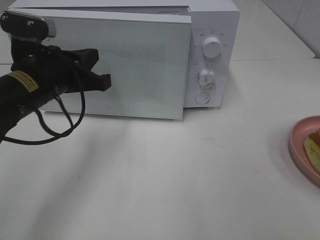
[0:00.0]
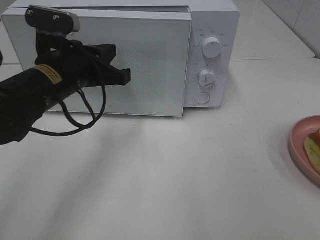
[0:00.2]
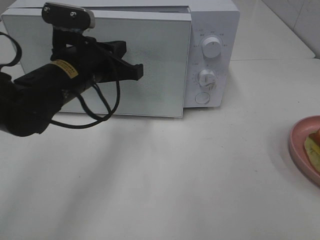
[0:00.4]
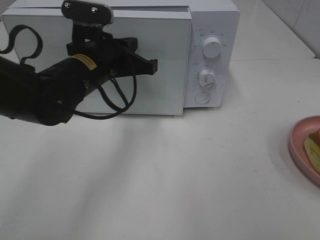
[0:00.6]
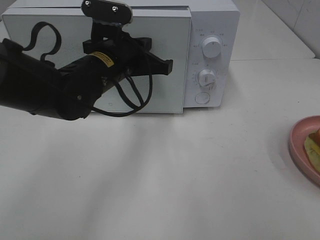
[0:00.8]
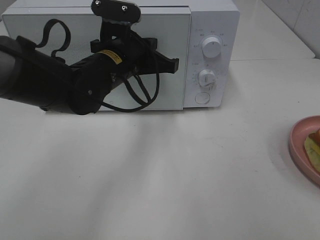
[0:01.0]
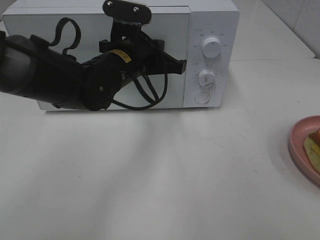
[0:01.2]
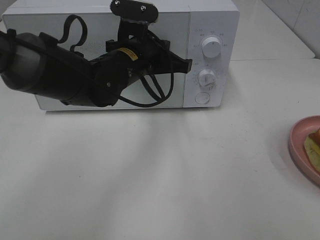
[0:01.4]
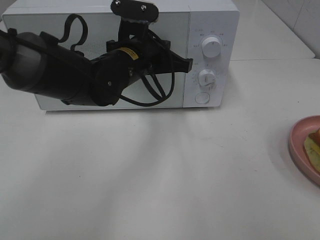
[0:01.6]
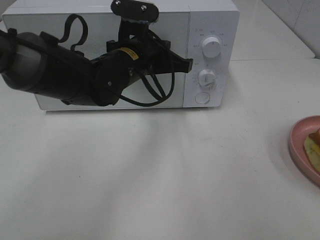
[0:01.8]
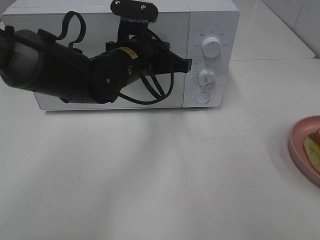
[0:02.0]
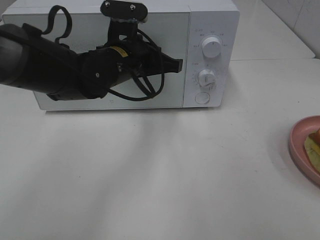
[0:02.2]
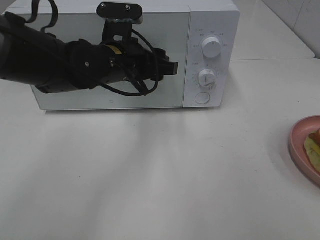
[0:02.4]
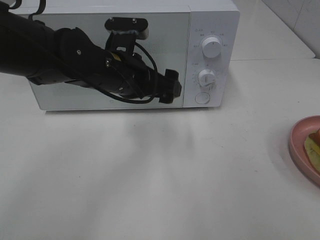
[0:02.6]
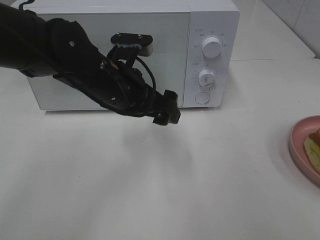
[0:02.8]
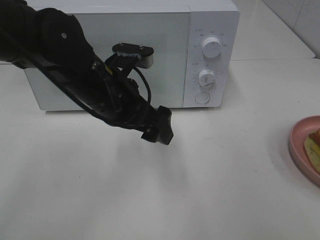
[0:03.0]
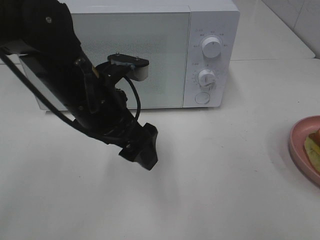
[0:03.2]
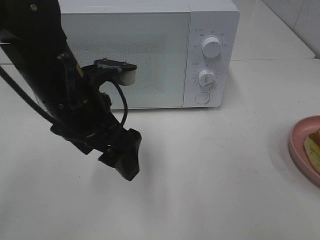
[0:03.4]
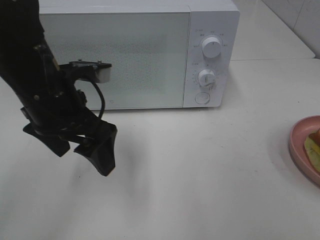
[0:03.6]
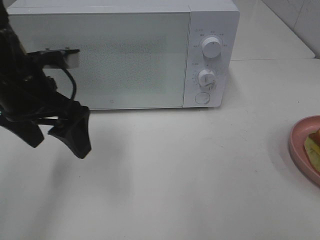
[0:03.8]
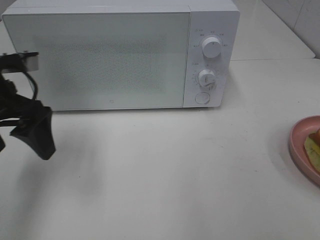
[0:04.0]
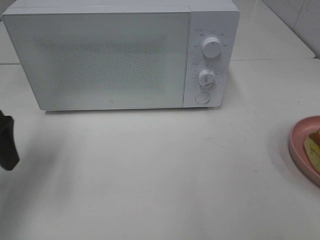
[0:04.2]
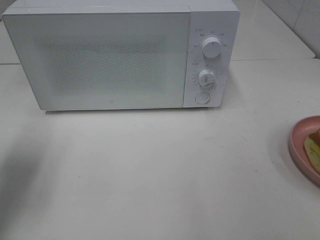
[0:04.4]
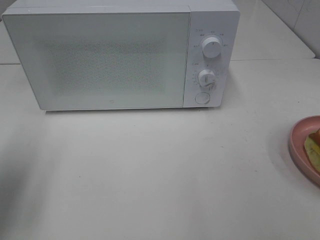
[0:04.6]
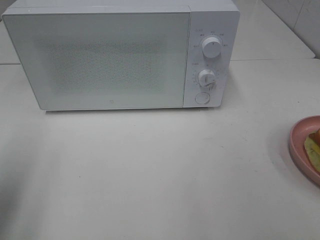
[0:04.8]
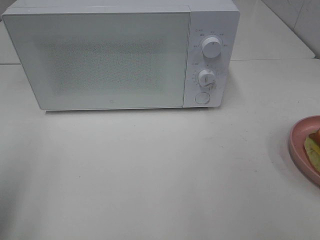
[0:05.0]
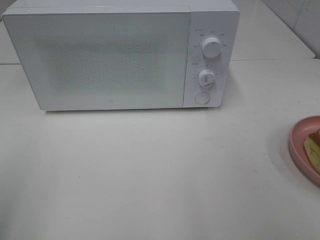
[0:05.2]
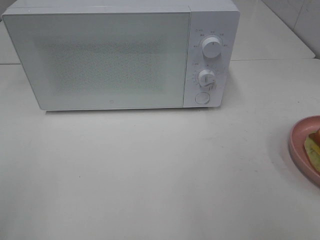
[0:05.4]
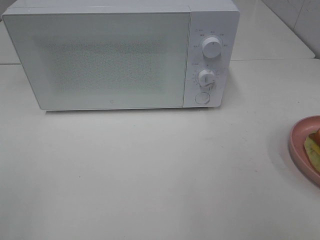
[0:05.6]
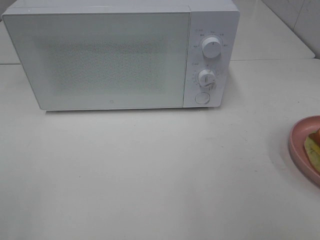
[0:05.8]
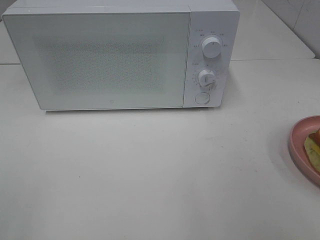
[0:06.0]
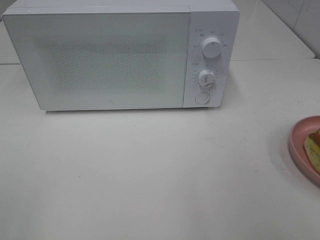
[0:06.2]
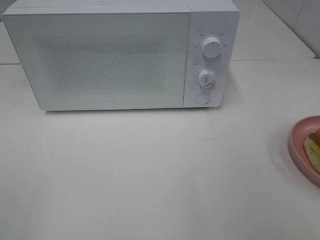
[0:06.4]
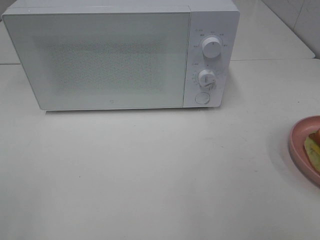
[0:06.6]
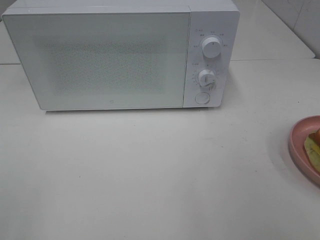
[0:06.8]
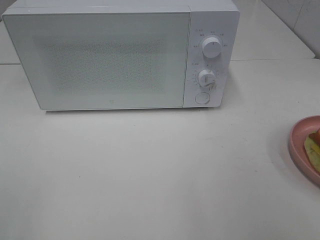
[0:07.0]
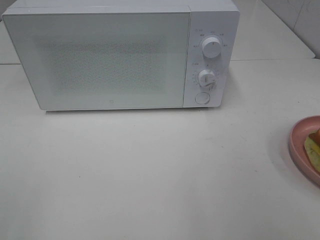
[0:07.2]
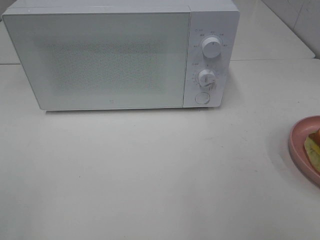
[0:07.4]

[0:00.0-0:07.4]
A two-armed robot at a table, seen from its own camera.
Task of the whole recording: Heat Sandwich.
Step, 0.0 to 2.8 s: Left hand: close the microwave door.
0.0 to 1.4 s: The left gripper goes approximately 15 cm to the right and forward.
1.4 to 3.0 s: The left gripper goes some 10 cm backward, and opens.
3.0 to 4.4 s: The left gripper is displaced to the left by approximately 25 cm.
4.4 to 6.0 s: The left gripper travels backward by approximately 20 cm.
6.0 to 7.4 s: Both grippers stay about where they are.

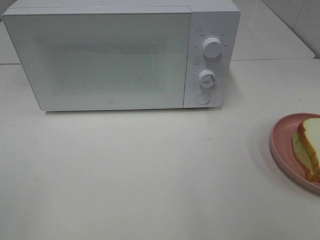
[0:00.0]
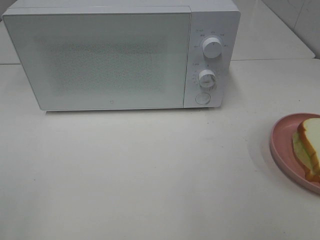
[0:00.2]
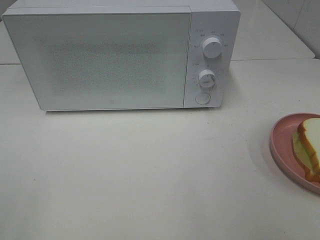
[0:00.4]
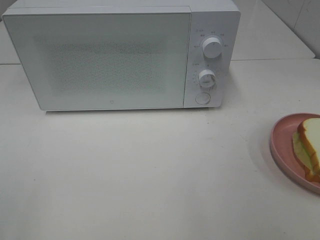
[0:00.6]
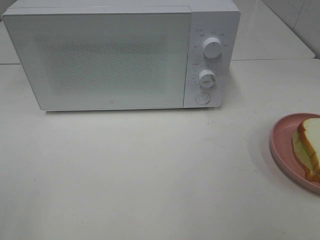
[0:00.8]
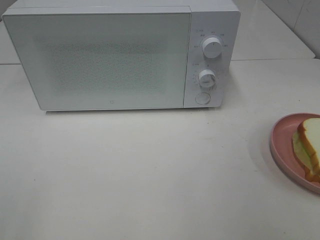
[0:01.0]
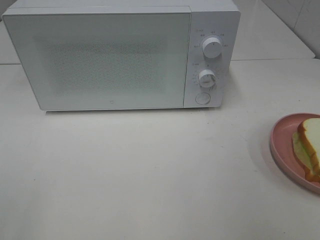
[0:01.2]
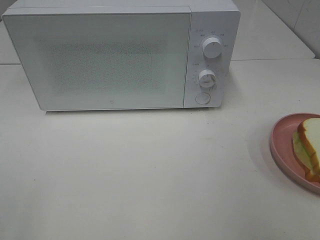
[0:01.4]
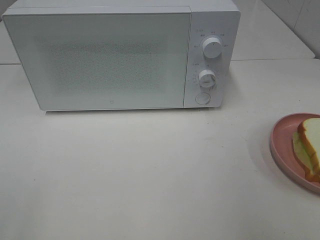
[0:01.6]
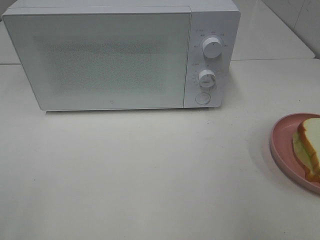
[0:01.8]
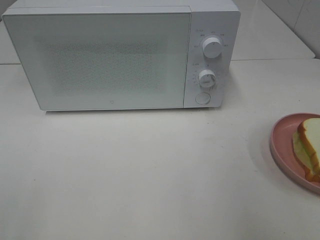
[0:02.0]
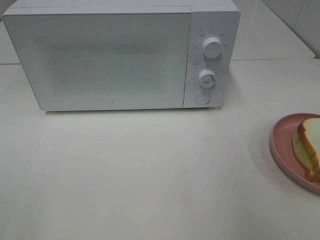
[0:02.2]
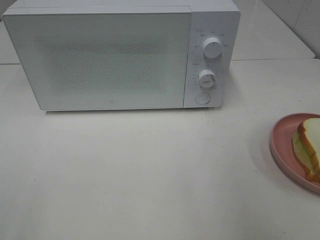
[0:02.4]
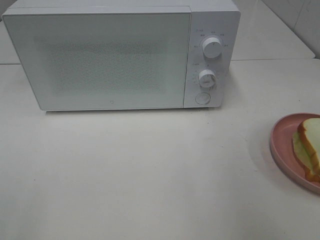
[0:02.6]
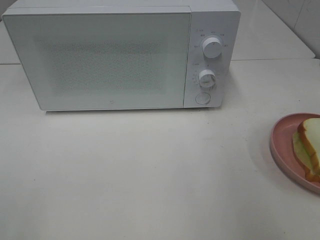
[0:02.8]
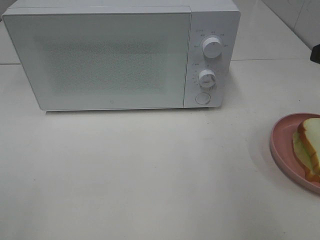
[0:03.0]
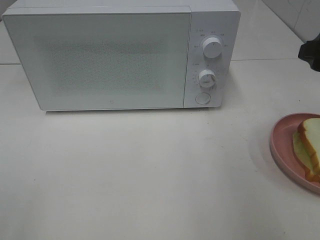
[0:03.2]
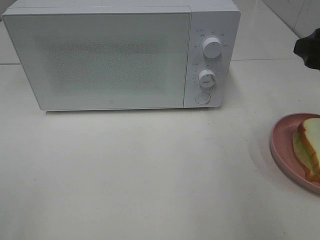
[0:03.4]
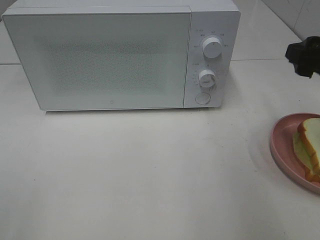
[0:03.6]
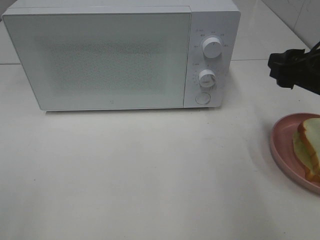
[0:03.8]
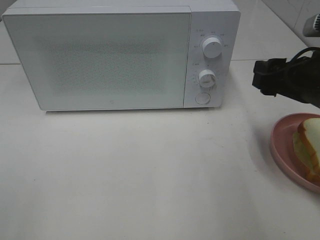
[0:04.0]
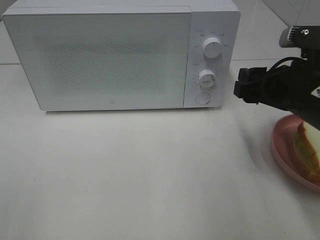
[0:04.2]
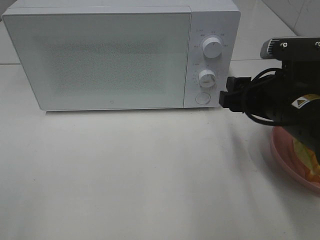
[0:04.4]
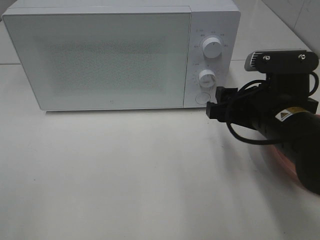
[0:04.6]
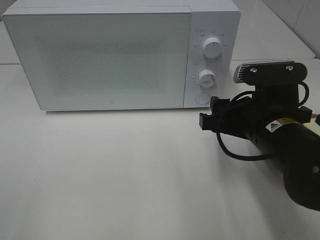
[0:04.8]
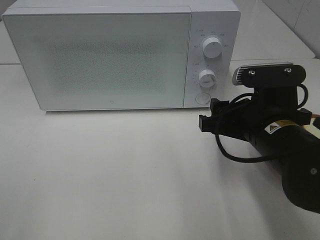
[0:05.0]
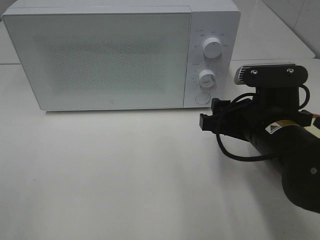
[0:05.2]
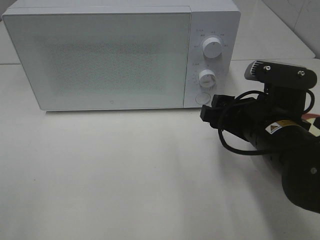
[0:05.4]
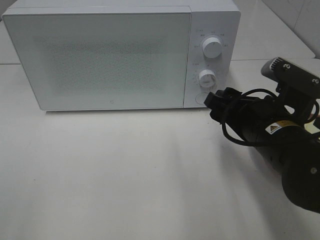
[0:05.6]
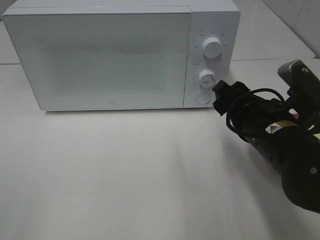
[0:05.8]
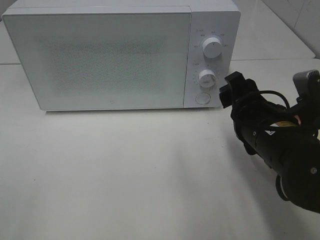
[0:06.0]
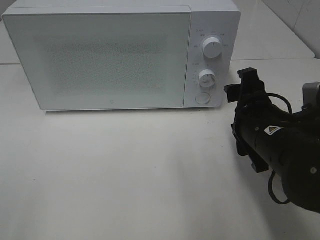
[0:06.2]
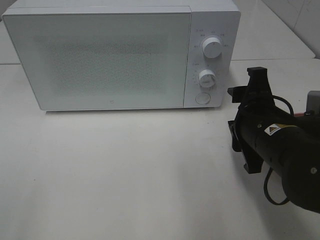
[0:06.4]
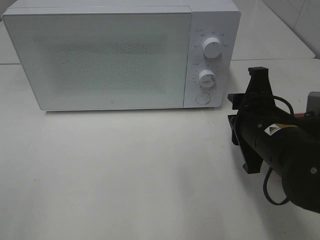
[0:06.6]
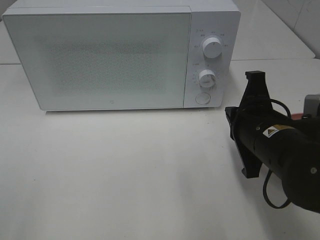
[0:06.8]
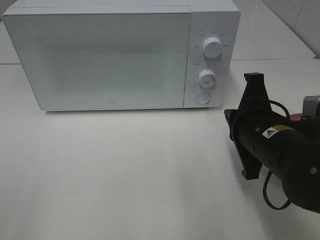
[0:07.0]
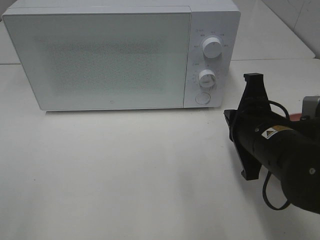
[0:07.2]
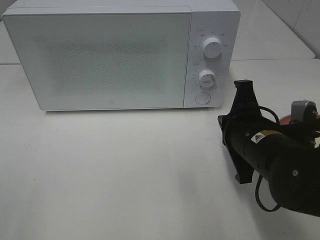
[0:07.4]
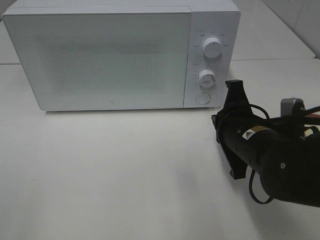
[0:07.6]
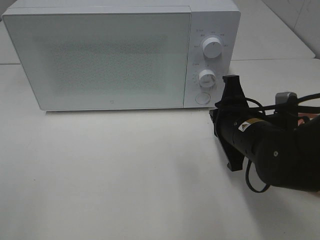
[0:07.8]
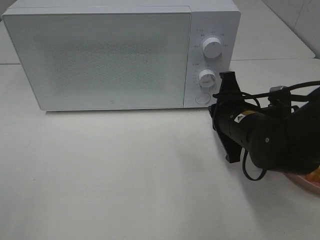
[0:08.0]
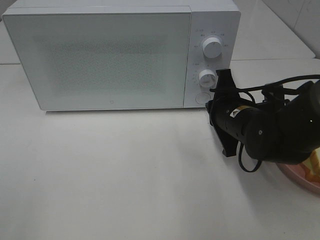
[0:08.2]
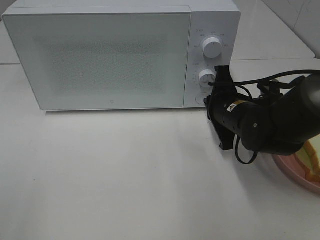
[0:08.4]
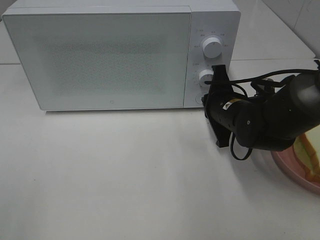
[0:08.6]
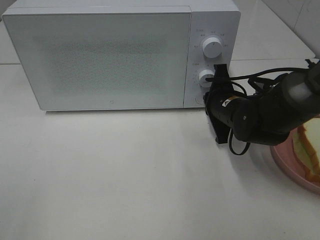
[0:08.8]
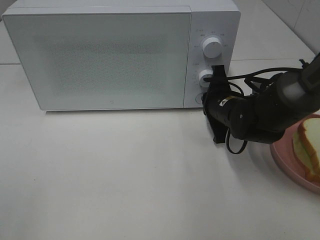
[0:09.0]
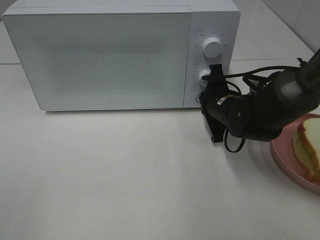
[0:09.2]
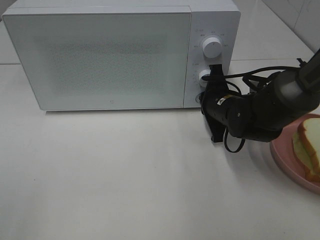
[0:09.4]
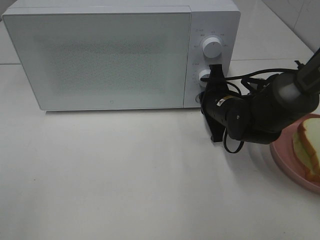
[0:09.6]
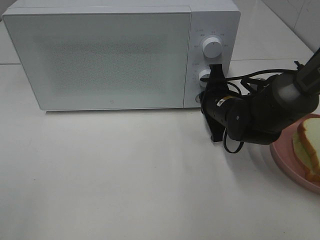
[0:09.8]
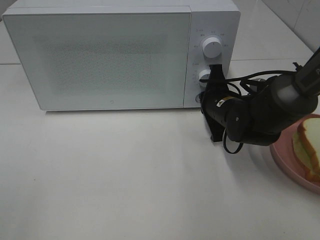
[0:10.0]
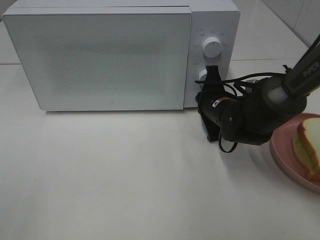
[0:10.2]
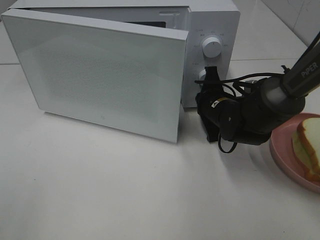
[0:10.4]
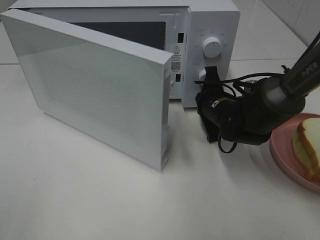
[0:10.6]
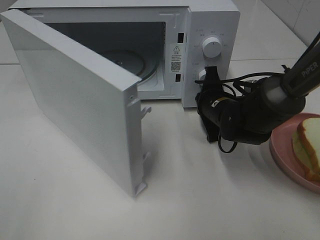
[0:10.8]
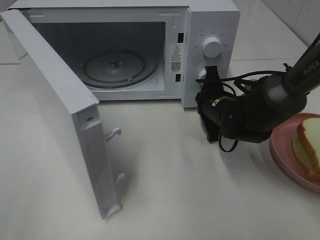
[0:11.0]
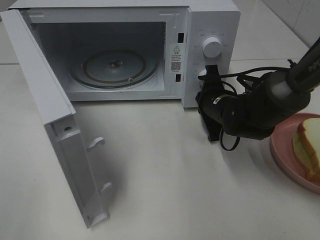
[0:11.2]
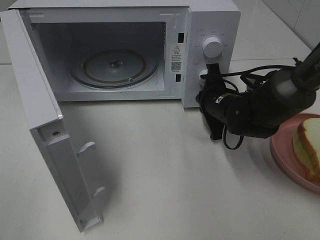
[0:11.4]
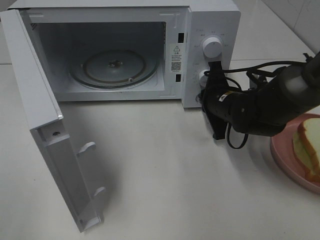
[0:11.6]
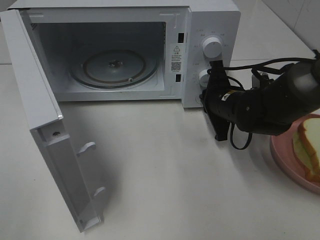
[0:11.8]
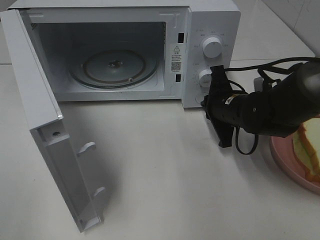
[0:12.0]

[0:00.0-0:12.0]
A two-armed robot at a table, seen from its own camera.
Task of the whole recording: Heat Sandwich.
Step, 0.0 to 11.8 s: Right hand: press the switch.
3.0 to 4.4 s: The right gripper travels to the left and downward by some 15 cm.
6.0 to 7.6 s: The right gripper closes up.
7.6 to 9.0 s: The right gripper travels forward by roughly 10 cm.
9.0 to 10.4 s: The grippers make only small movements.

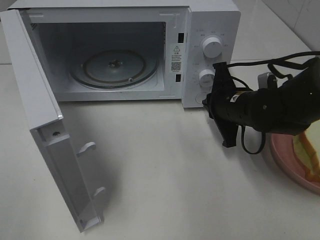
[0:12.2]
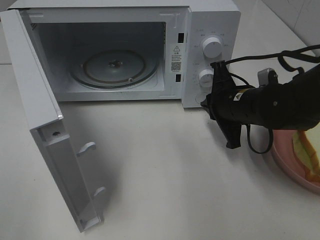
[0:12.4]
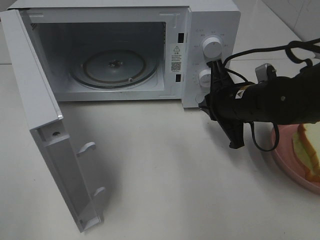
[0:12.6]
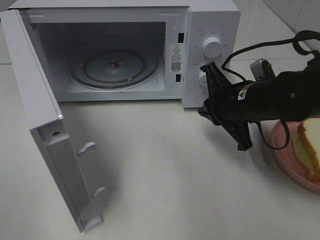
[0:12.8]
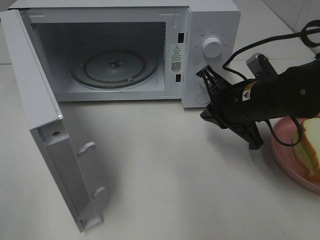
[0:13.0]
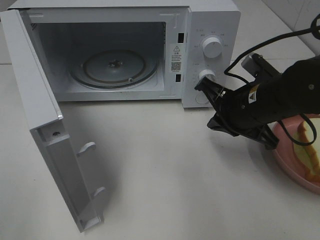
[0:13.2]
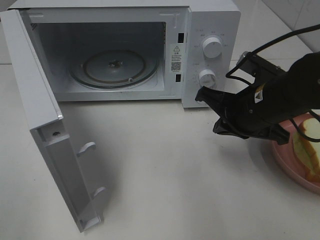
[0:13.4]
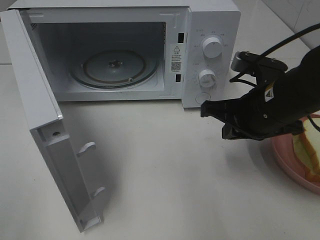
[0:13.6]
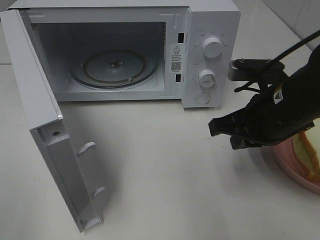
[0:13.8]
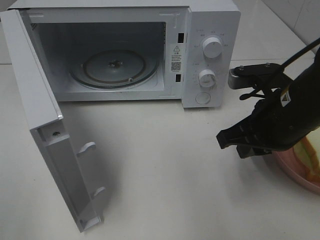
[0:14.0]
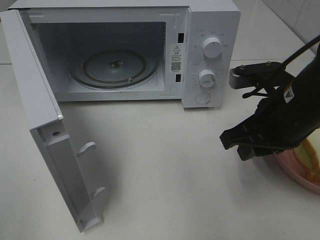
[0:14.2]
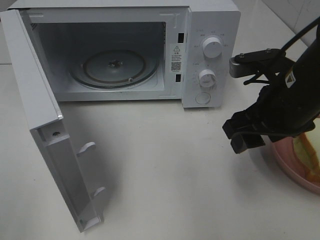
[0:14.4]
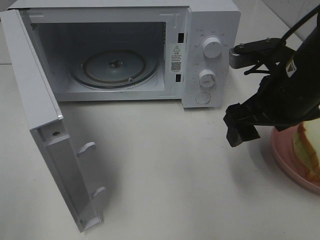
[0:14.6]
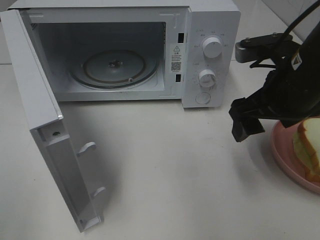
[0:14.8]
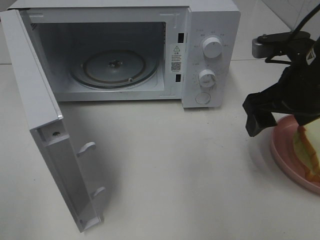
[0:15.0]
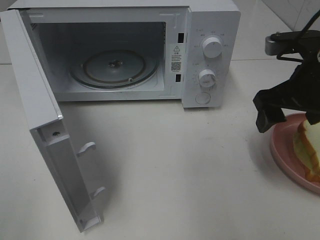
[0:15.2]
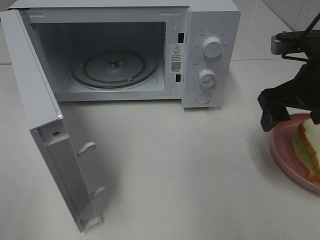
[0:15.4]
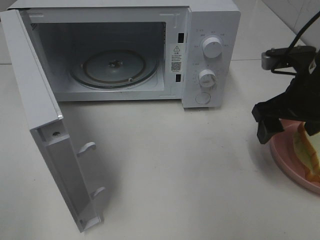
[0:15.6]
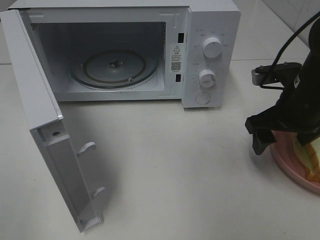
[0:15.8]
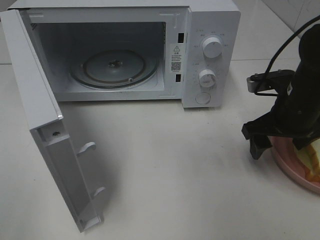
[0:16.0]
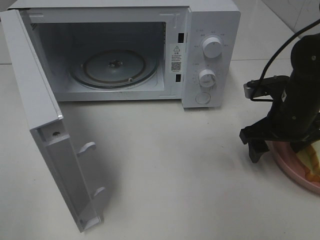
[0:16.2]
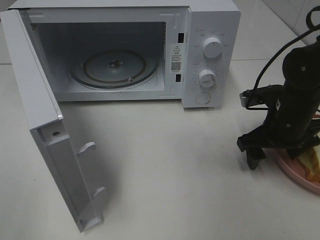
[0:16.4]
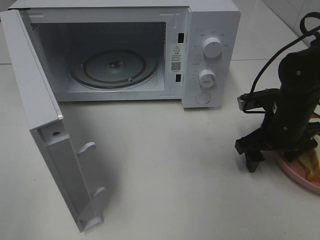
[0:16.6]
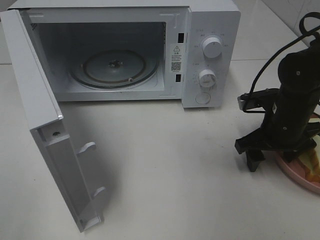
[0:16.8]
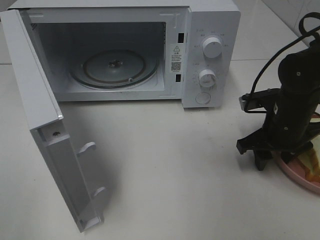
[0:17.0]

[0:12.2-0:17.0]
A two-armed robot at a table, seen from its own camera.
Task of the whole recording: Heat Sandwich.
12.2 to 13.8 s: The right gripper goes roughly 10 cm backward and upward.
13.8 to 15.4 s: The right gripper travels to the right by some 5 cm, and opens.
15.4 to 17.0 s: The right gripper moves downward, approximately 10 cm.
